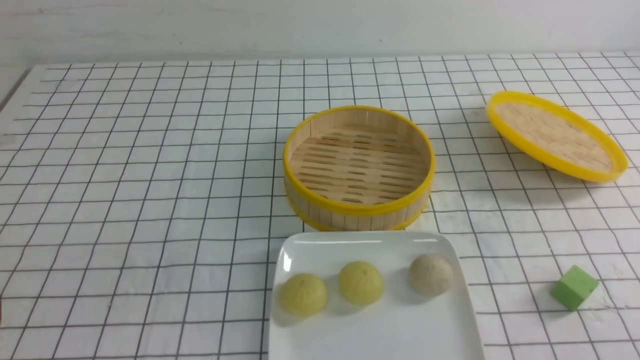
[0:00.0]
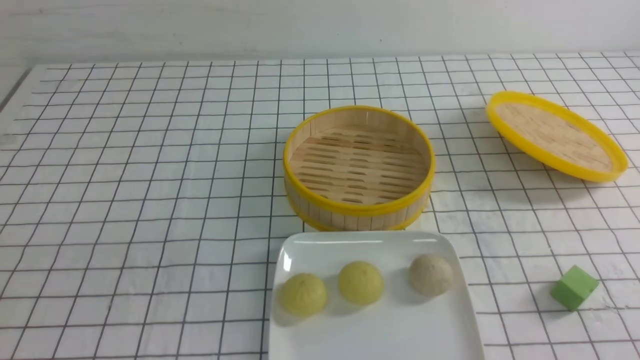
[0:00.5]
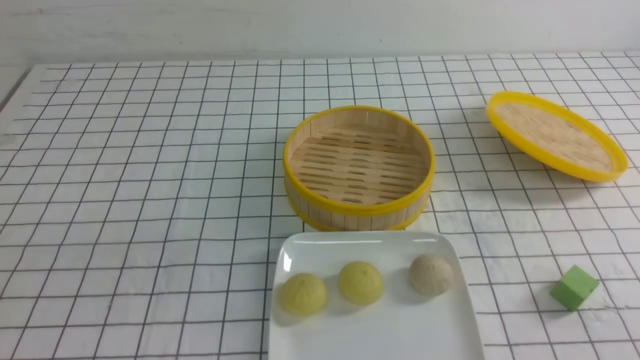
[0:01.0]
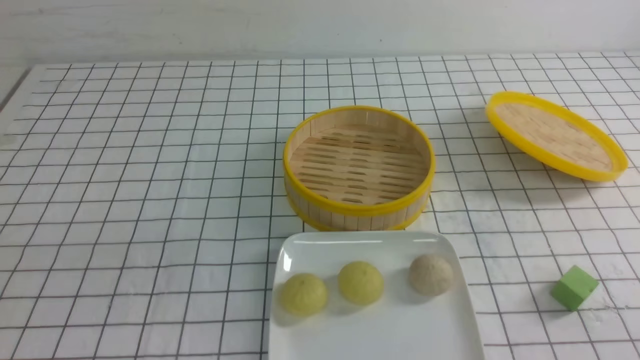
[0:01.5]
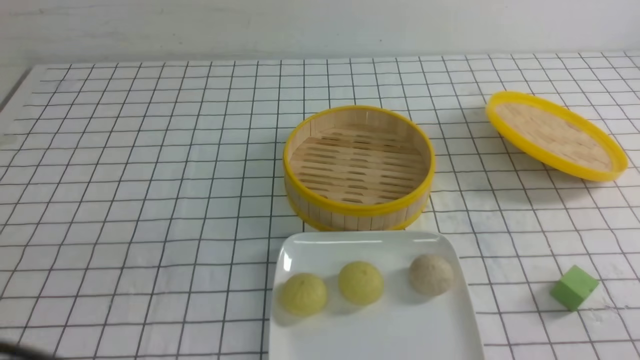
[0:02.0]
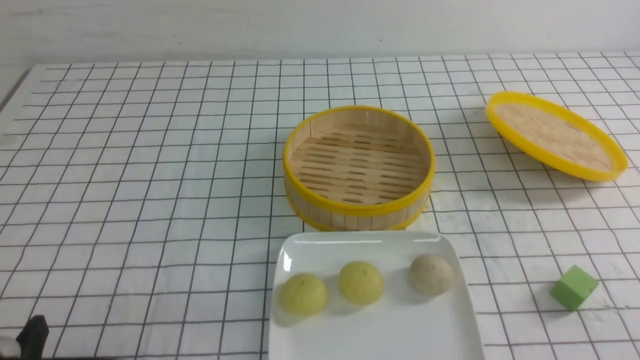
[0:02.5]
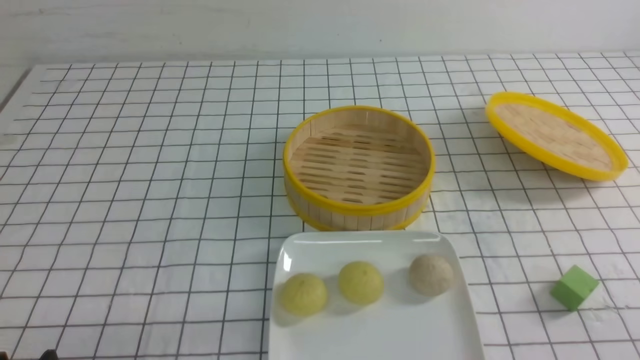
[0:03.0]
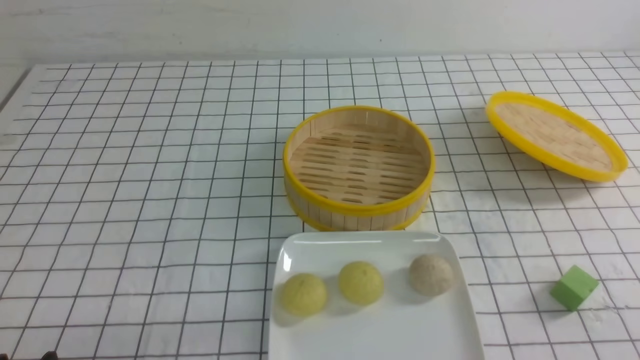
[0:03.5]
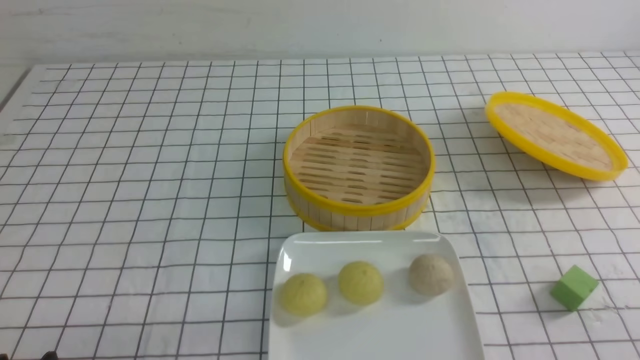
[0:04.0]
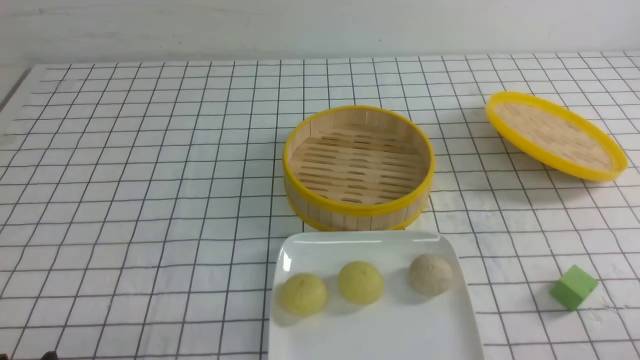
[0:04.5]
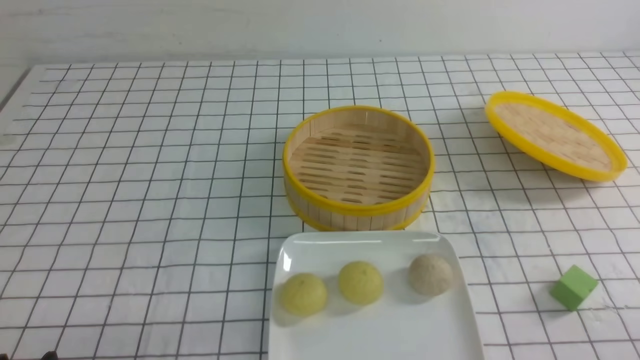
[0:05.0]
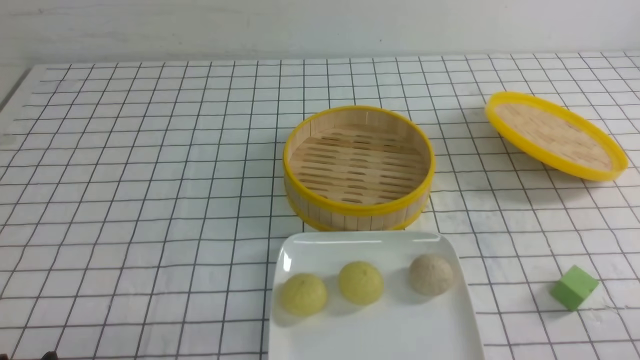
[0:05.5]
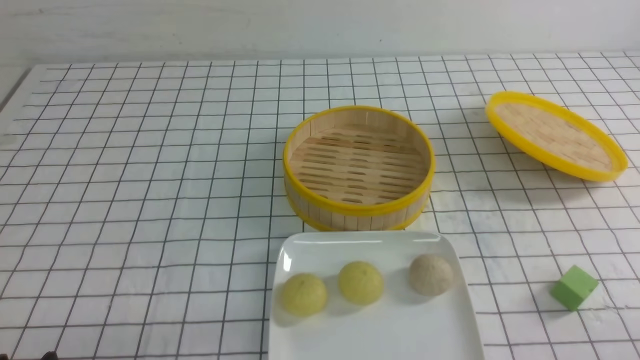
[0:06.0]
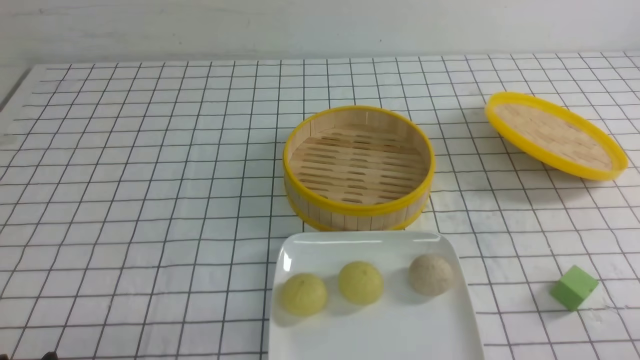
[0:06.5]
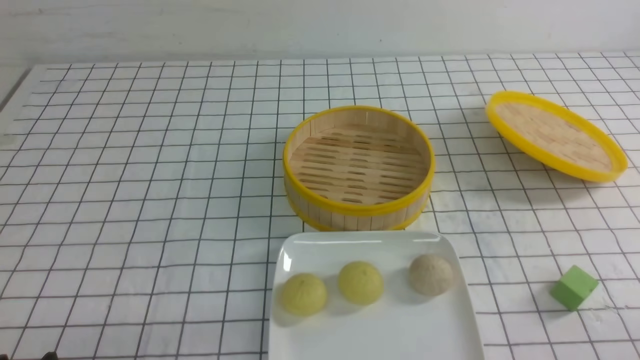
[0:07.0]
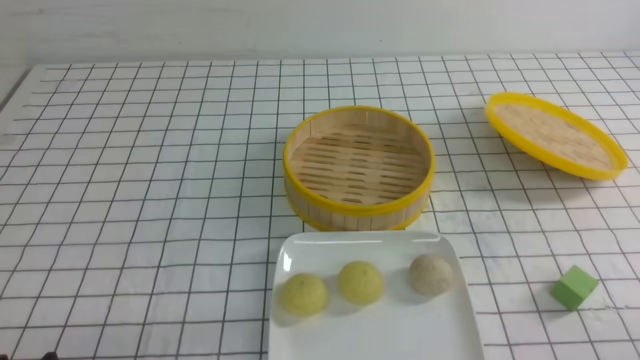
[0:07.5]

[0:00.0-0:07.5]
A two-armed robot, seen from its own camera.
0:05.5 to 0:07.5: Neither gripper changes place.
